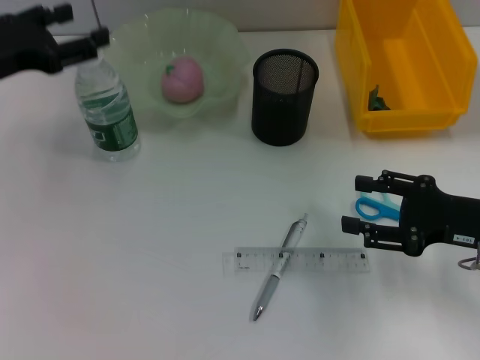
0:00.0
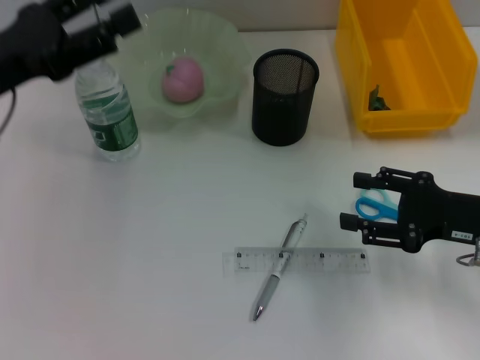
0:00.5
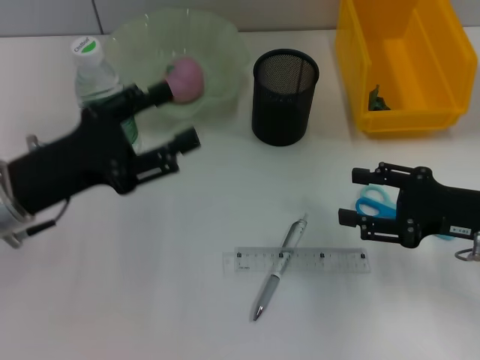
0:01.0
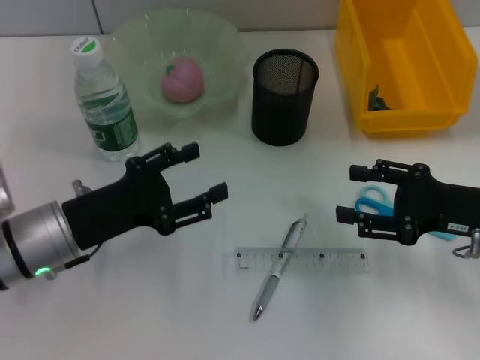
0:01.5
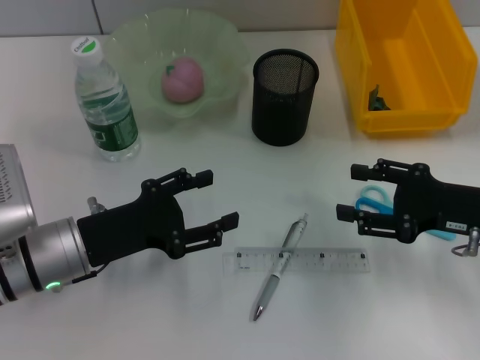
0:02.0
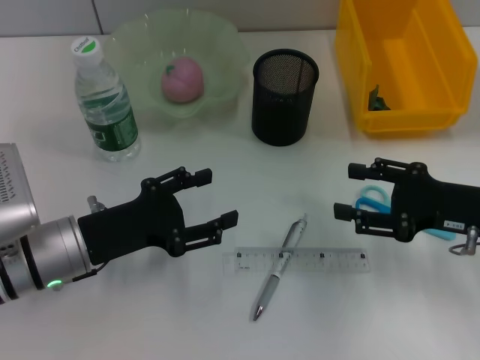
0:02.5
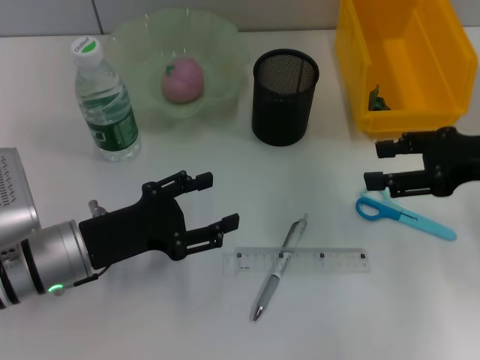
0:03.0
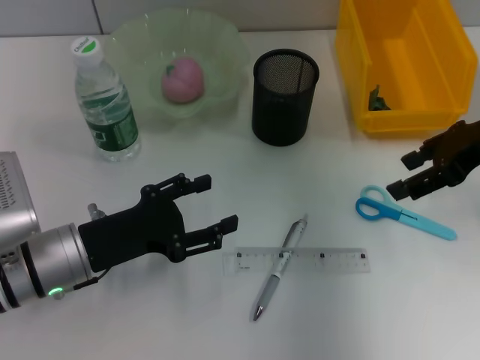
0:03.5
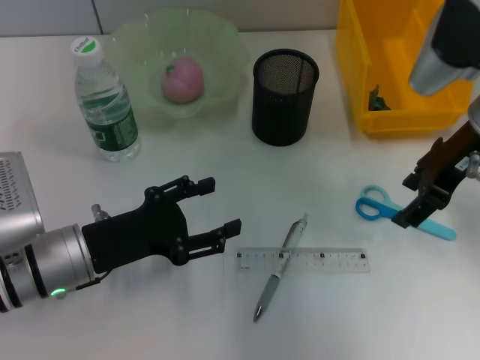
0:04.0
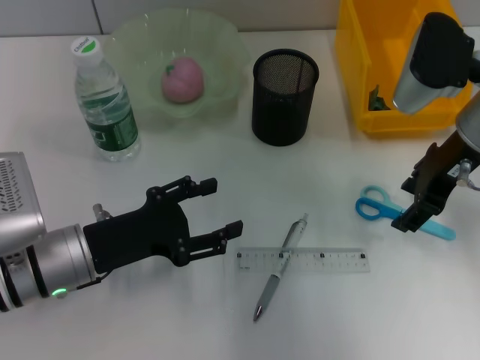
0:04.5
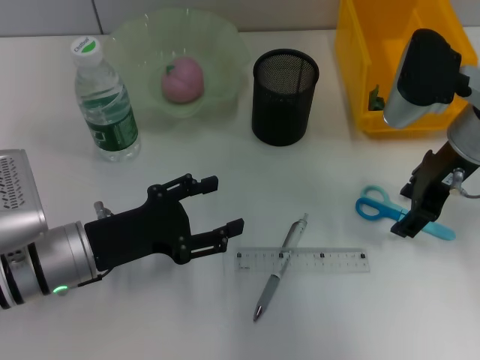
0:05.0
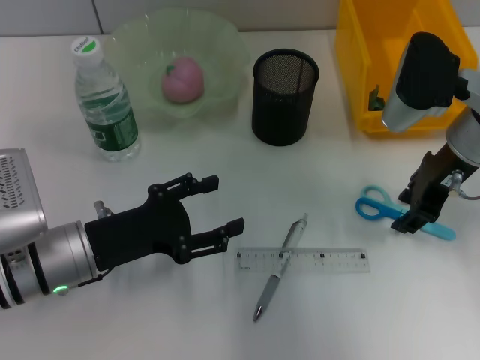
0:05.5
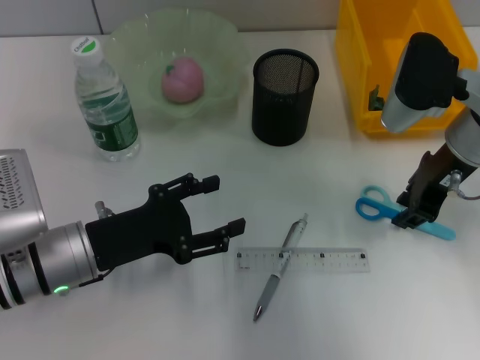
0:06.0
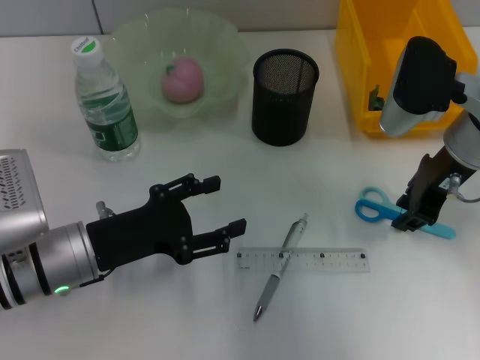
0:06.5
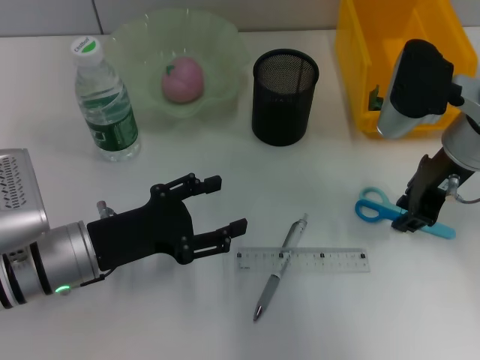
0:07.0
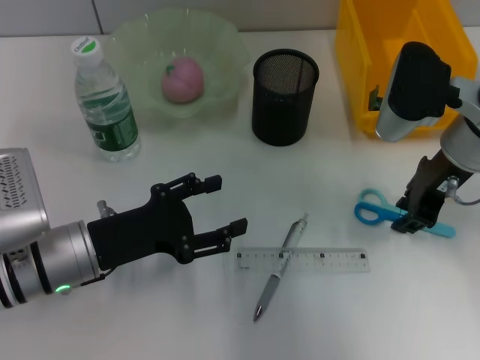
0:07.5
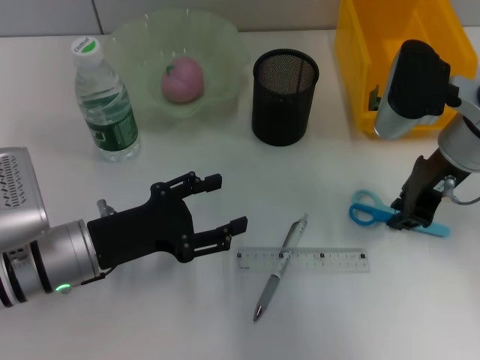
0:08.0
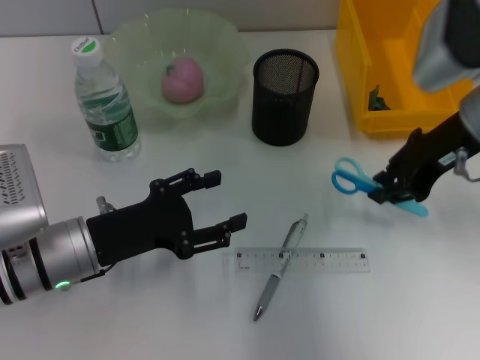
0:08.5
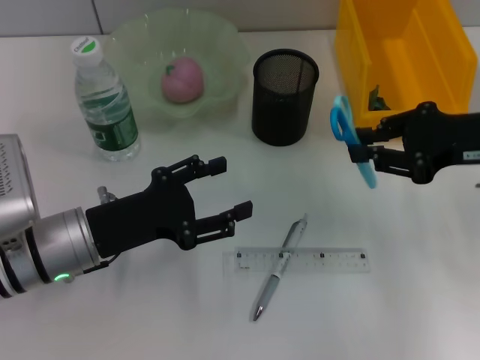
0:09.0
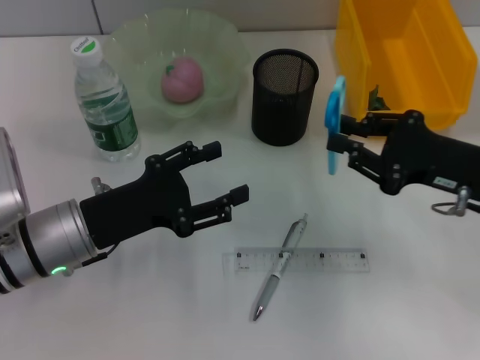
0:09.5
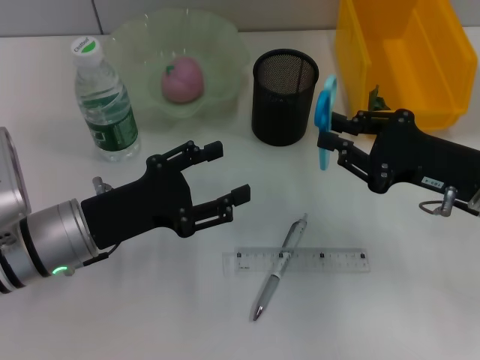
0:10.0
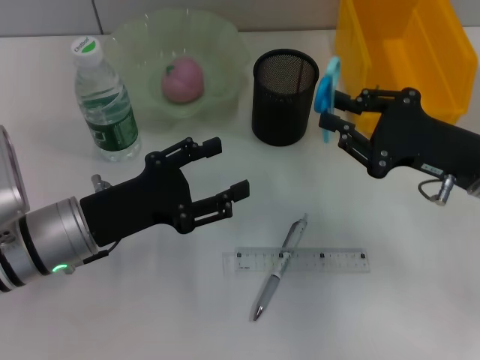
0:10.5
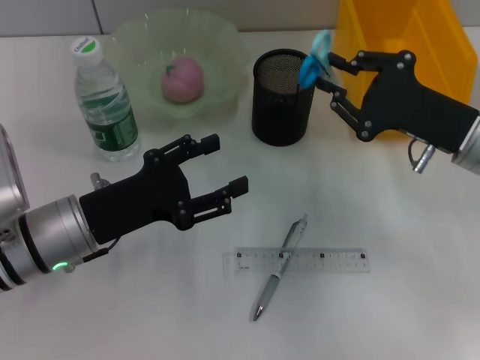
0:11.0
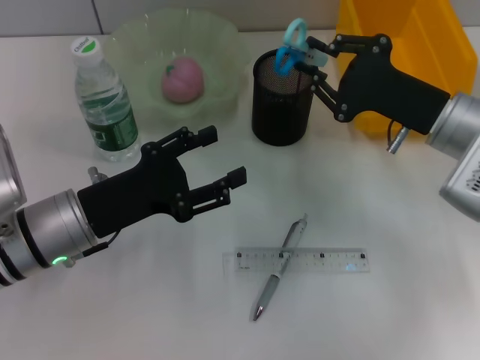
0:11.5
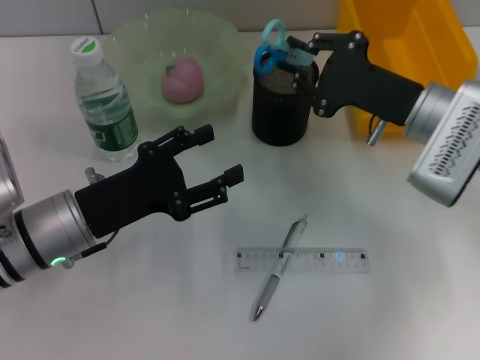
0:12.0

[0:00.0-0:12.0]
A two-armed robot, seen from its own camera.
Step, 0:00.0 to 0:07.5: Grab the blue scissors with the right hand.
0:00.0 to 0:02.0: The left gripper is displaced downward, backward and to the right by approximately 20 cm.
0:02.0 to 0:04.0: The right gripper heads upward, forward and to the left, covering some 15 cm.
0:04.0 to 0:06.0: The right gripper closes up.
0:06.0 to 0:08.0: Neither gripper changes place.
0:08.0 to 0:10.0: The right gripper moves backward, downward and to the right, about 10 cm.
0:10.0 to 0:12.0: The right gripper travels forward and to the left by about 10 cm.

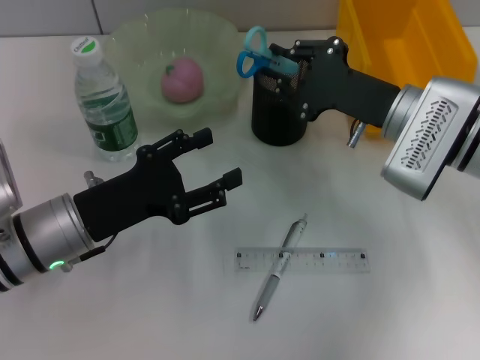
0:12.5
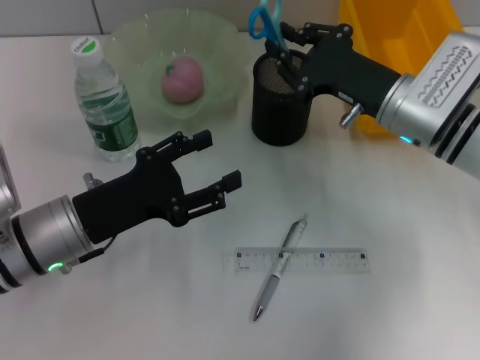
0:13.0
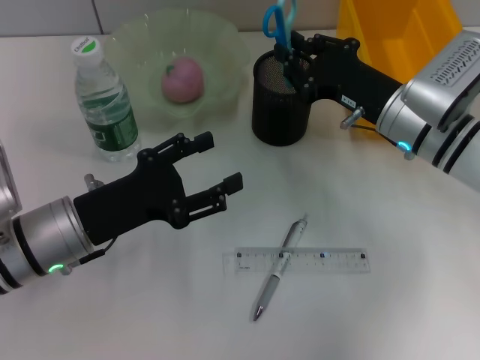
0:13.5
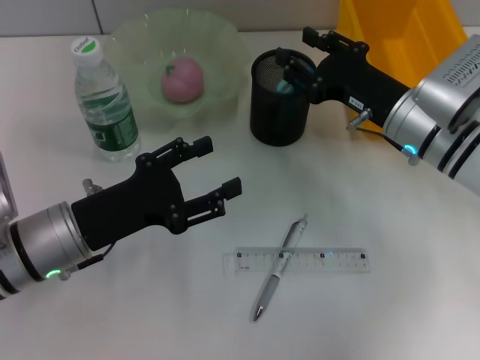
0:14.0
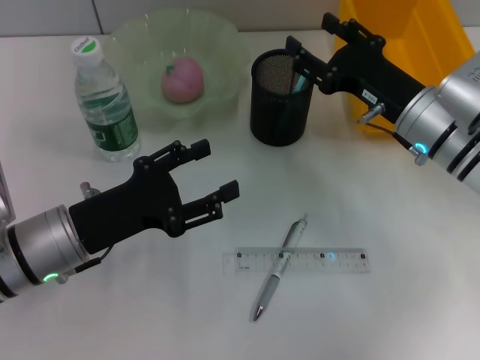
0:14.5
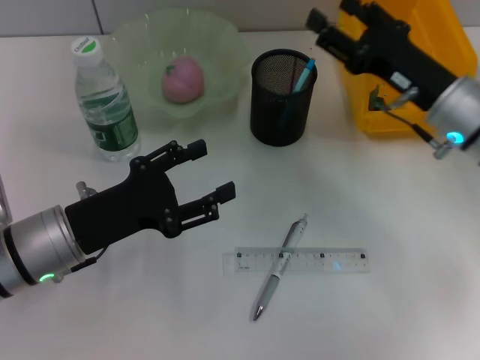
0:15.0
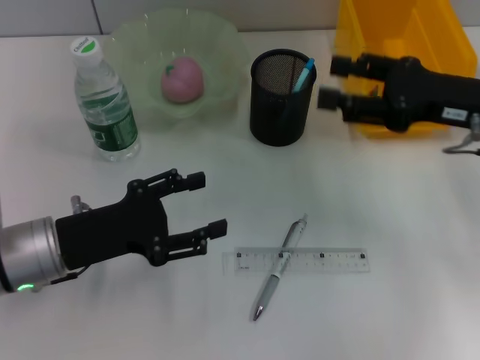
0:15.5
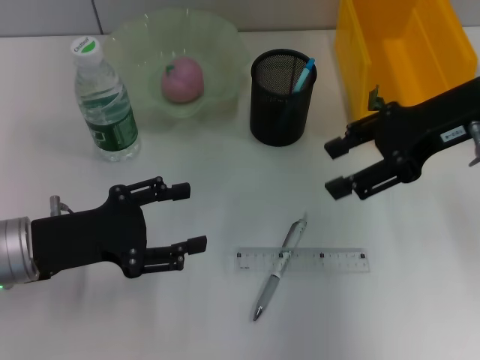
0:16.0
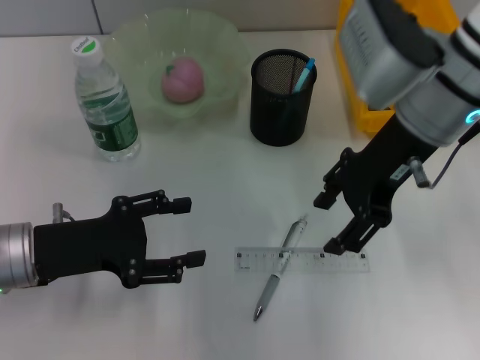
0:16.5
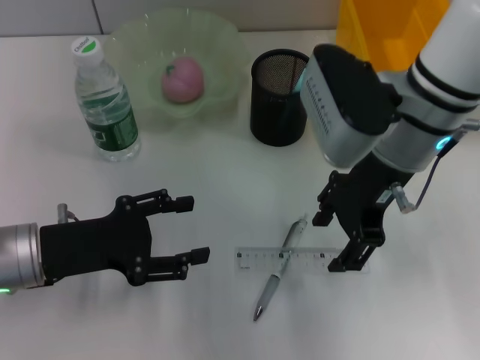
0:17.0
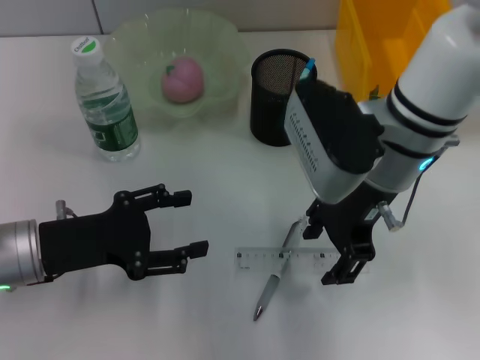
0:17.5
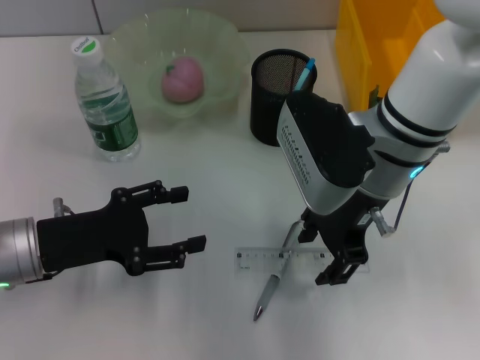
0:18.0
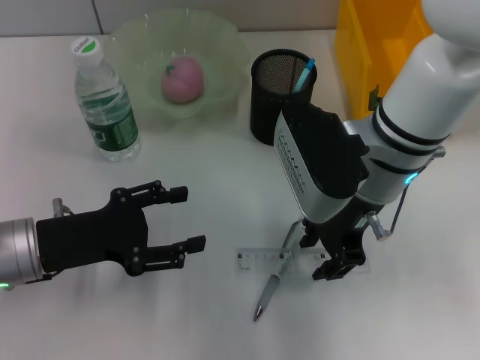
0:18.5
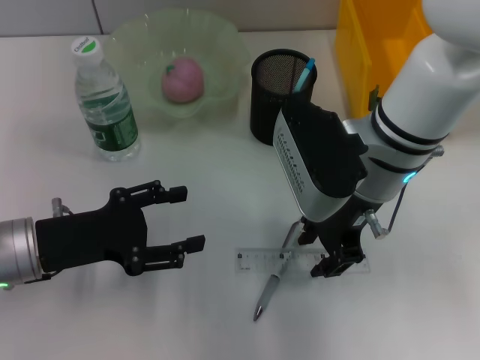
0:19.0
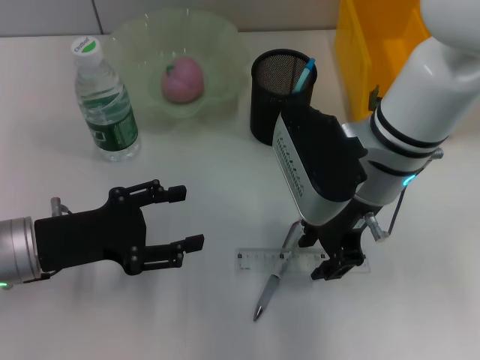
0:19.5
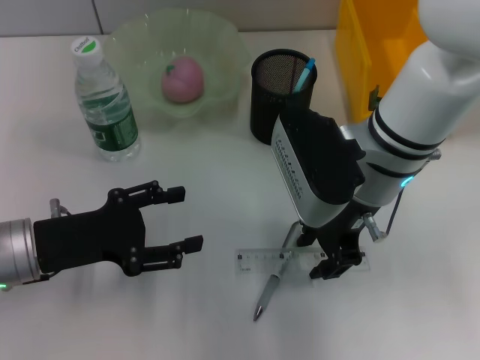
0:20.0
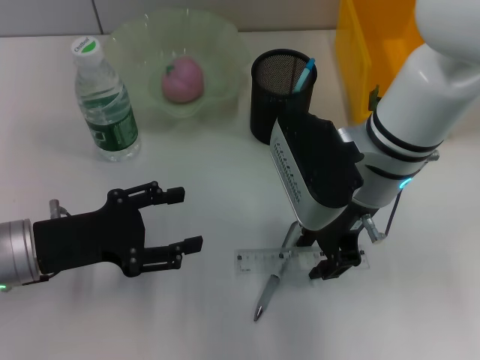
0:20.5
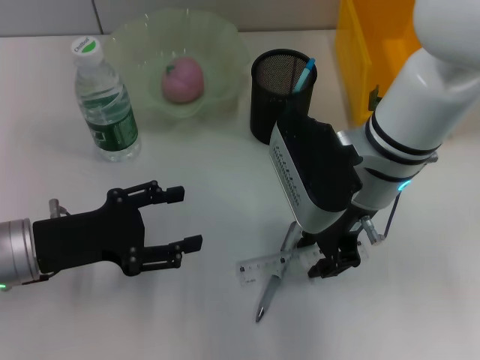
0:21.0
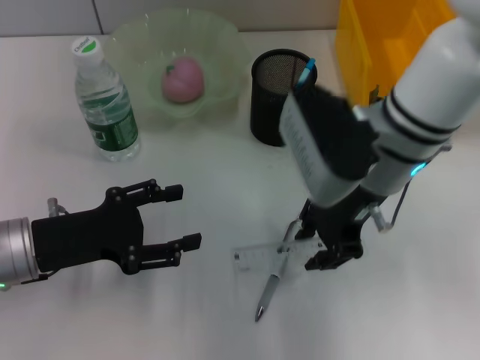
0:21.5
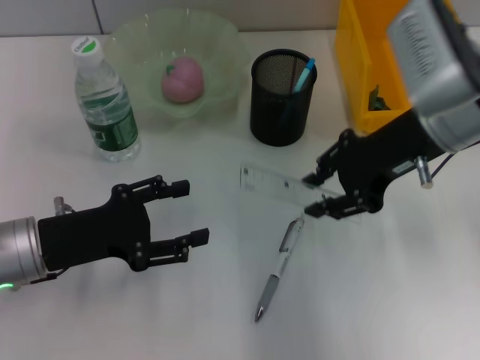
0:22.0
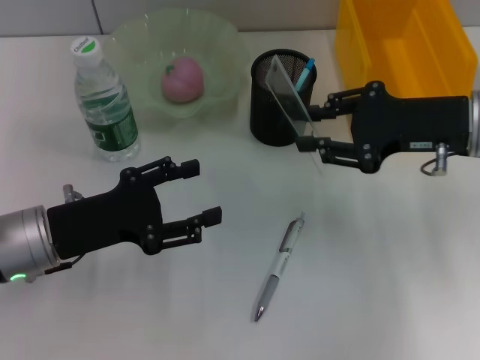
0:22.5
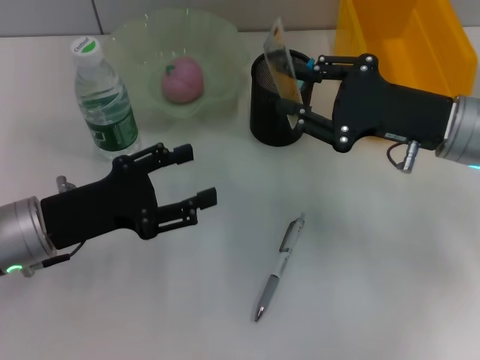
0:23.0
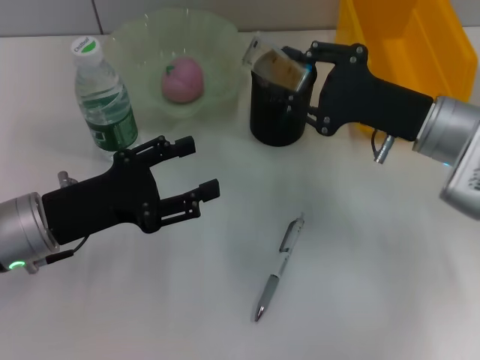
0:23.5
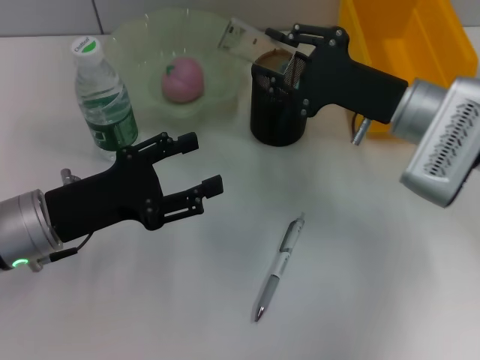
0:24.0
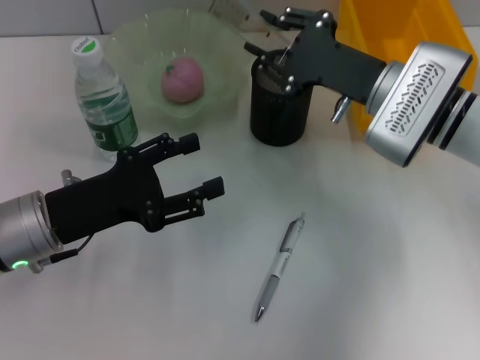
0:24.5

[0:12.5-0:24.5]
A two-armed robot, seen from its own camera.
Step, 0:14.5 to 0:21.0: Grab the ruler with the right hand.
0:12.5 to 0:14.5: The right gripper opens its fingers.
0:14.5 to 0:16.5: The right gripper shifts approximately 10 cm upward.
0:16.5 to 0:18.5: The right gripper goes roughly 5 cm downward.
0:18.5 to 0:20.5: Both grippers stay about where they are.
0:20.5 to 0:22.5: The right gripper travels to the right by approximately 15 cm.
0:22.5 to 0:24.5: The right gripper goes some 5 cm to the left.

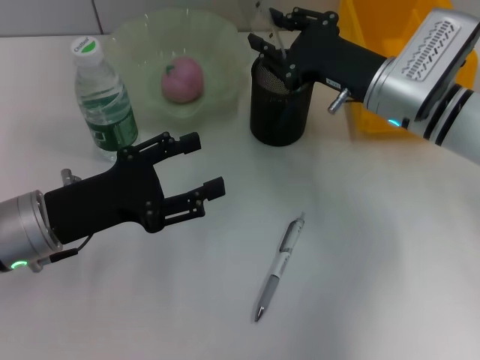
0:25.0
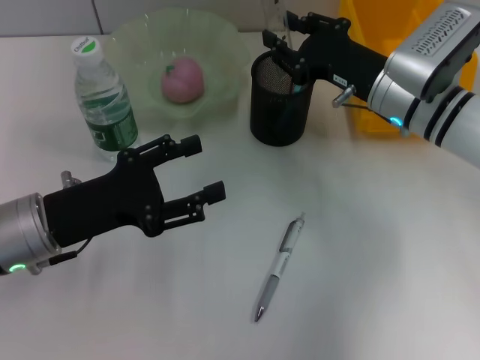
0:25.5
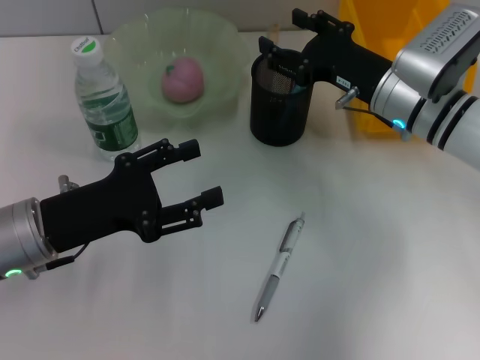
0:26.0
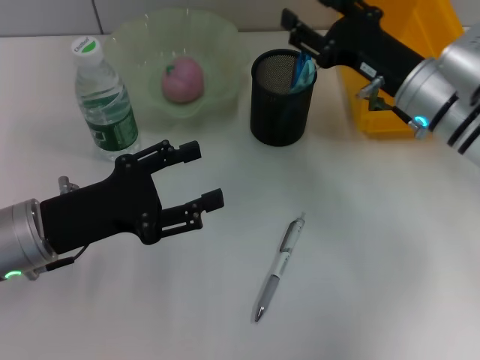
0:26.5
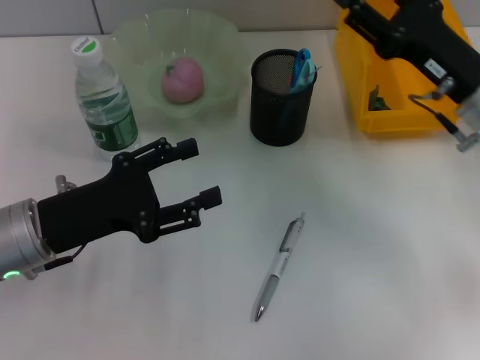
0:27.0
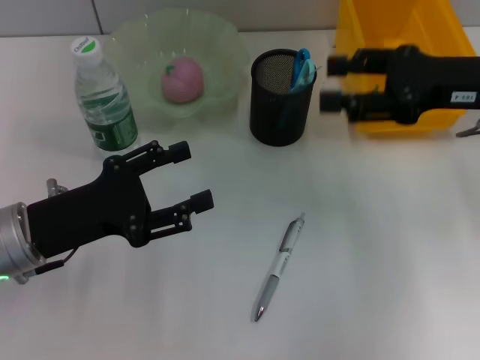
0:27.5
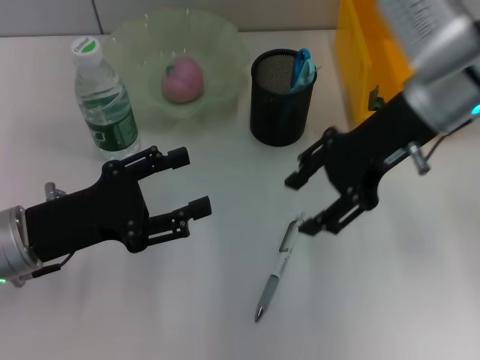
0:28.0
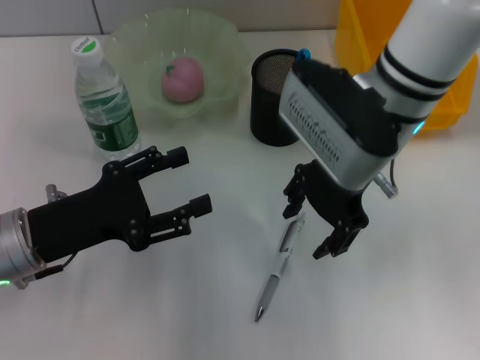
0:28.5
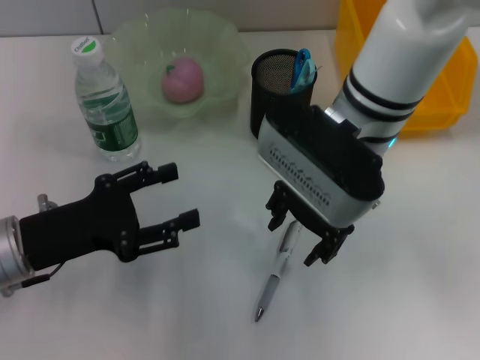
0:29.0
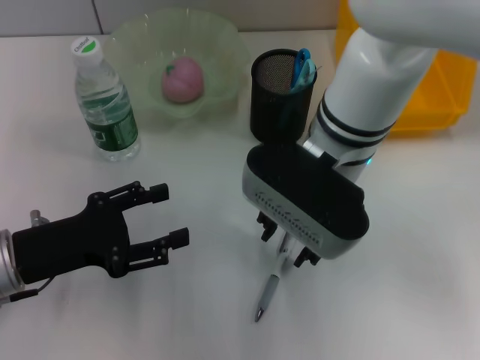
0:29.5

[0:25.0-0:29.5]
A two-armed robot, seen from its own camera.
0:25.0 to 0:27.0: The right gripper goes roughly 5 cm to the right, and opens.
0:27.0 to 0:29.5: The right gripper goes some 20 cm to the left.
